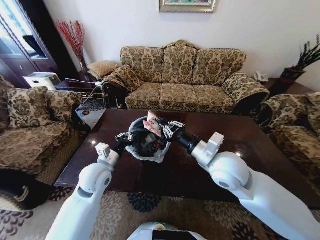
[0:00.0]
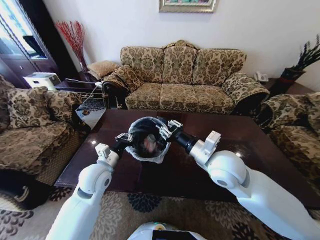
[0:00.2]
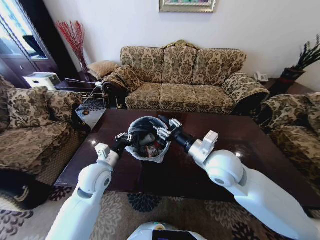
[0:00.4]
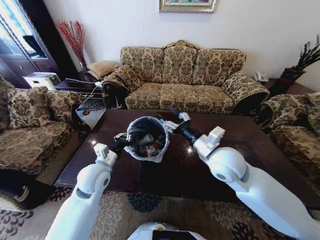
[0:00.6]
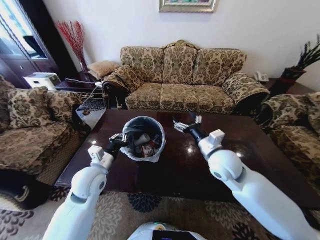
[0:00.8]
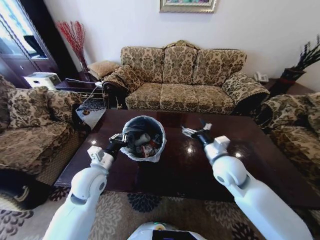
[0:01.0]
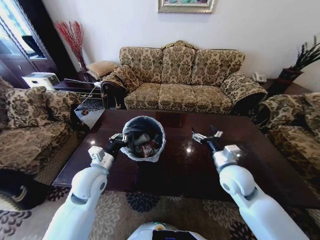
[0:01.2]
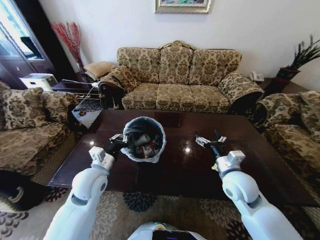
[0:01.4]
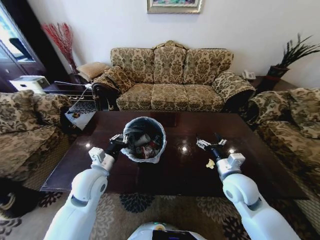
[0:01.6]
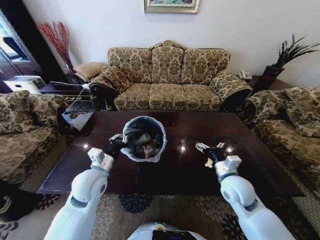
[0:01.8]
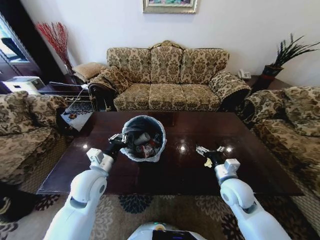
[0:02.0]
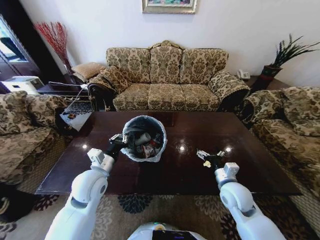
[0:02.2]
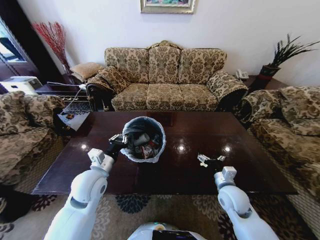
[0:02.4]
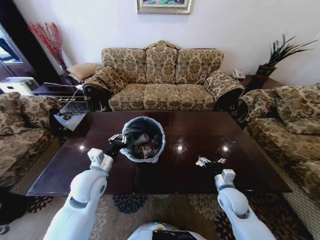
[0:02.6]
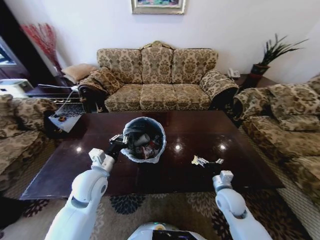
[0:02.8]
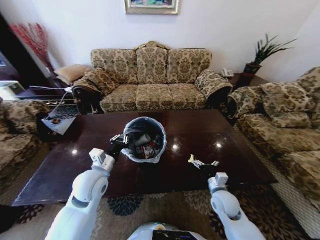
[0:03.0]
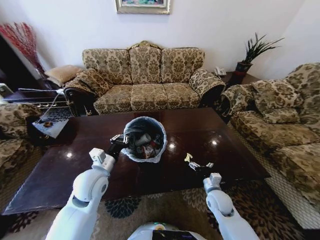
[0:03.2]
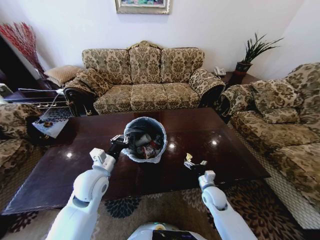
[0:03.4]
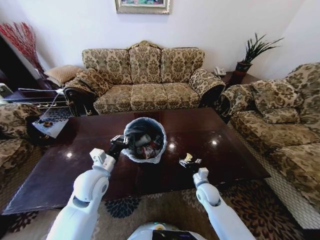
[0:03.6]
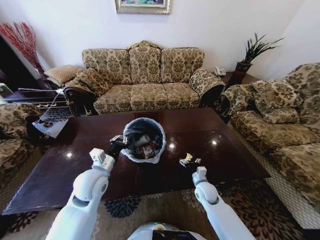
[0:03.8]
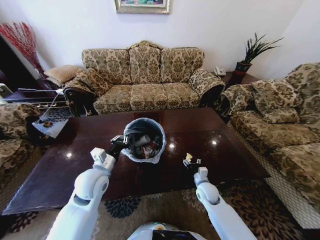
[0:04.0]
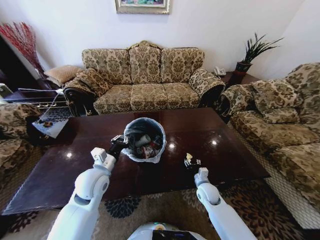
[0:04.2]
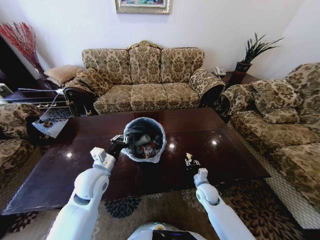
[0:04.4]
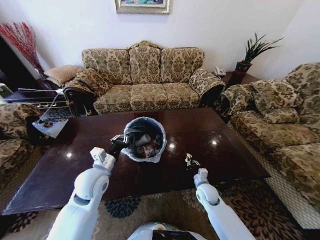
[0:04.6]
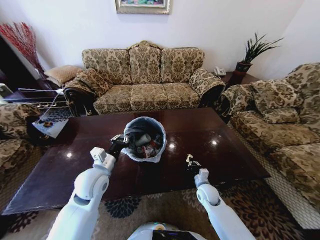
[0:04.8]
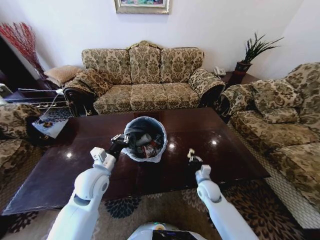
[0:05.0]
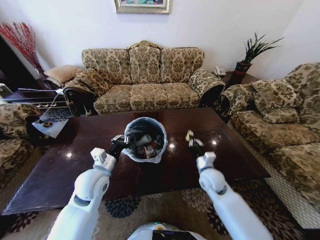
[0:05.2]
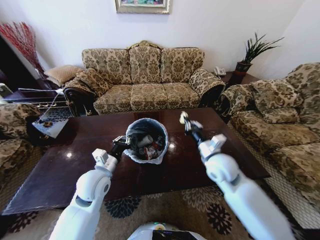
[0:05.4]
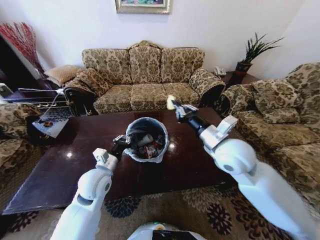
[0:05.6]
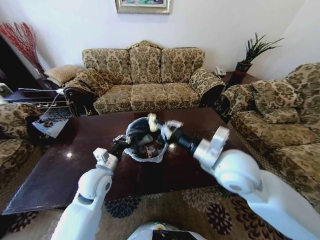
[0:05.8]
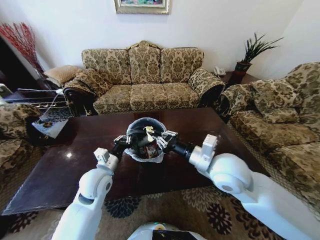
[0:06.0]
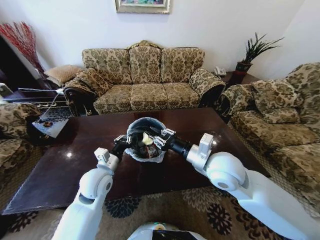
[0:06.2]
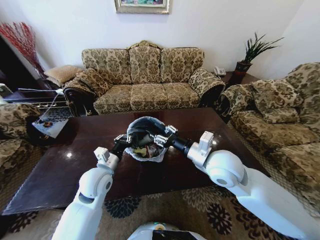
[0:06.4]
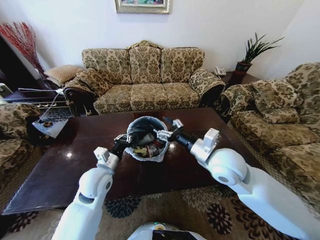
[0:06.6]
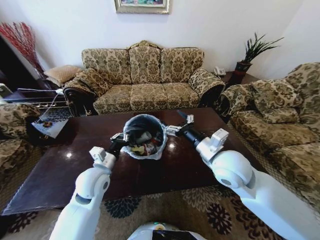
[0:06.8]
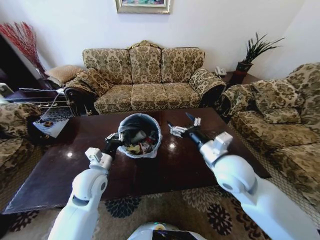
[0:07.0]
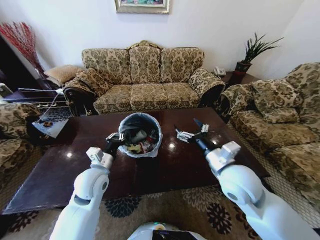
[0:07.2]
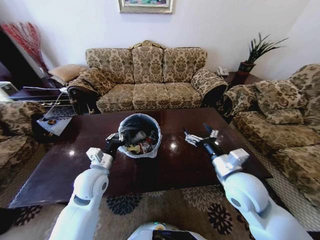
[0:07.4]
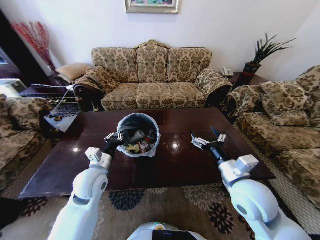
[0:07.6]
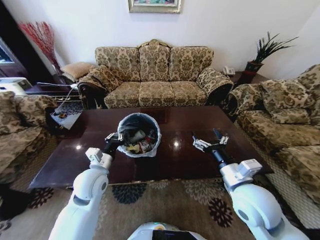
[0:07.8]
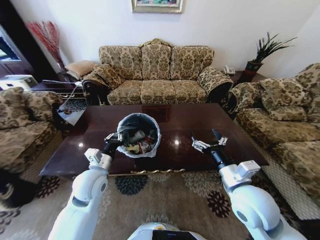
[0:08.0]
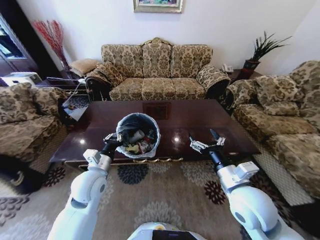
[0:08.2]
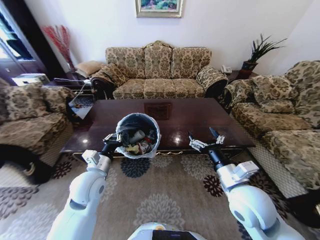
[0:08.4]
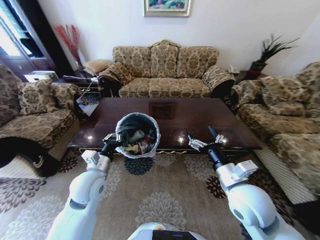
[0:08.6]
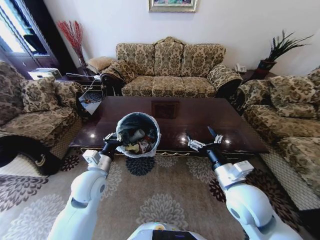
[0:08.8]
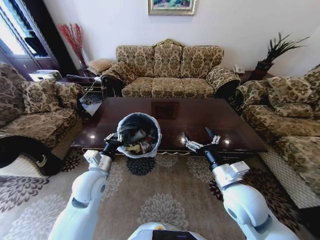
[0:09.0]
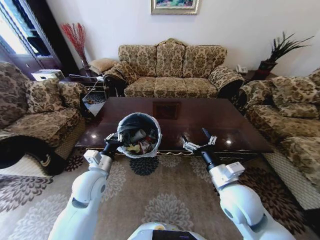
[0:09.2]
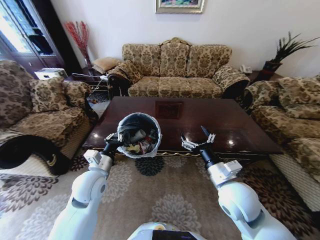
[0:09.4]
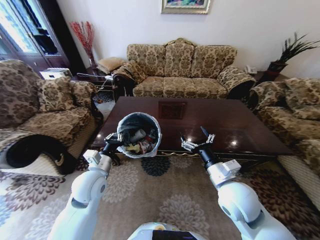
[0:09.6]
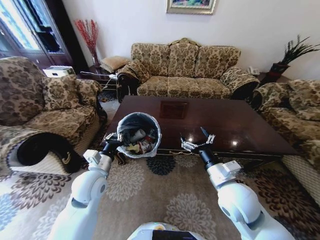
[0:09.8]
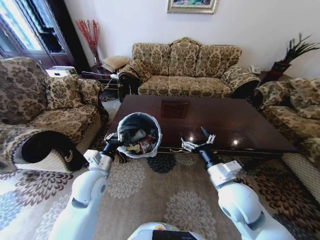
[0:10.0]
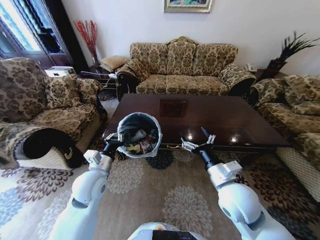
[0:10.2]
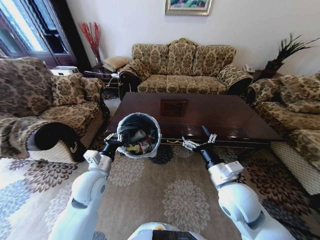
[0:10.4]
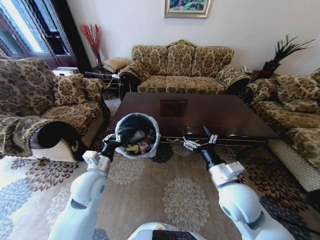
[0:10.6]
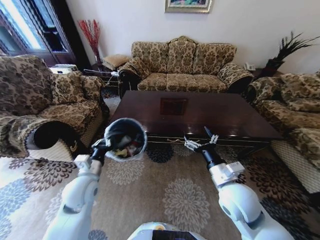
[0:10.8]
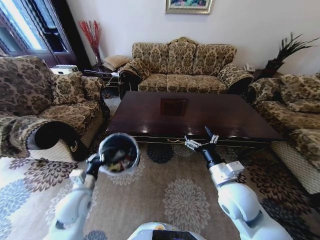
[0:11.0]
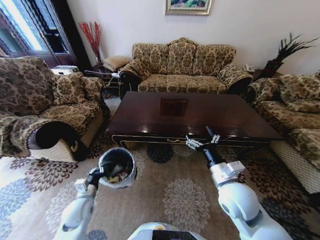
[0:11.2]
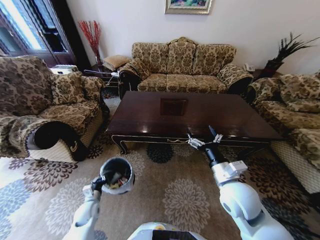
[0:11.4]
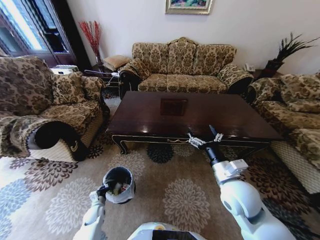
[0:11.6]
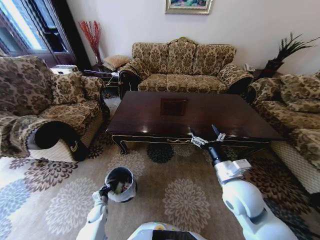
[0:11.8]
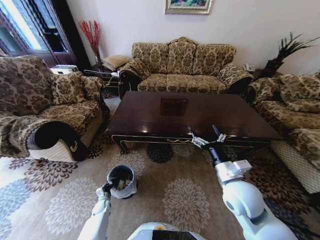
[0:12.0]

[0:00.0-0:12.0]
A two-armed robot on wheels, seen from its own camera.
Task of the whole recording: Move to the front of the table and place the trash on the table into the trash bin.
0:00.0 to 0:01.6: The right gripper shifts about 15 cm downward and to the right, and opens its fingers.
0:01.6 to 0:03.0: The right gripper heads downward, covering about 15 cm.
0:03.0 to 0:04.4: The right gripper travels downward and forward by some 10 cm, and closes up.
0:04.4 to 0:06.0: The right gripper travels upward by about 30 cm, and closes.
0:06.0 to 0:07.6: The right gripper heads to the right and downward, covering about 10 cm, and opens.
0:10.4 to 0:12.0: The left gripper travels downward by roughly 40 cm.

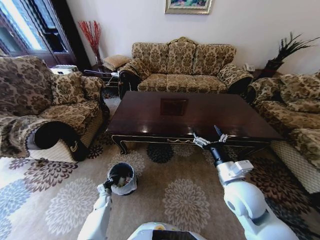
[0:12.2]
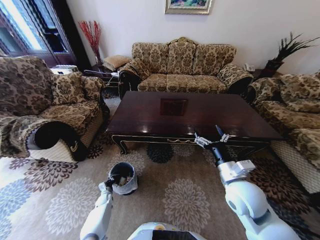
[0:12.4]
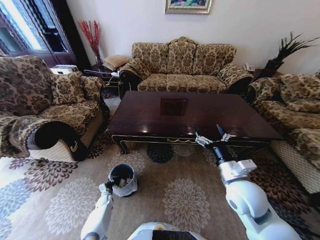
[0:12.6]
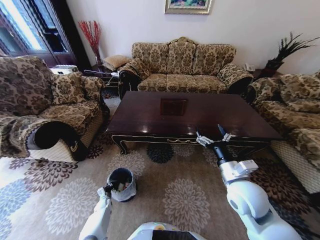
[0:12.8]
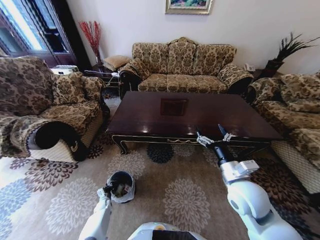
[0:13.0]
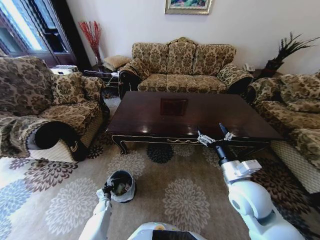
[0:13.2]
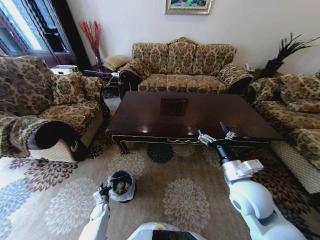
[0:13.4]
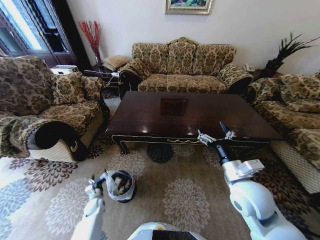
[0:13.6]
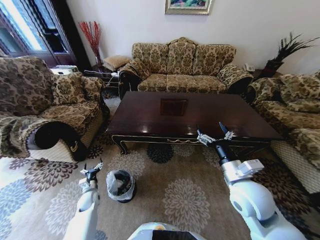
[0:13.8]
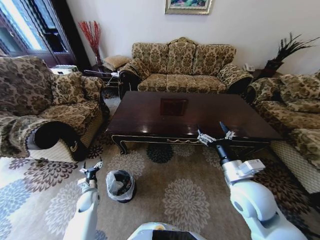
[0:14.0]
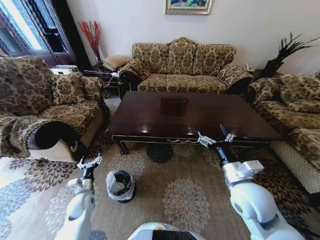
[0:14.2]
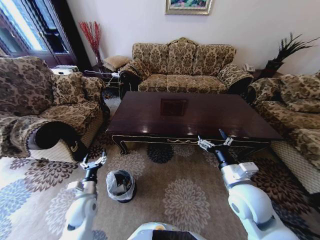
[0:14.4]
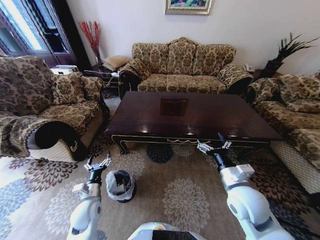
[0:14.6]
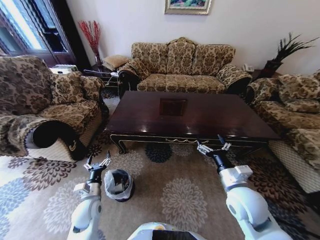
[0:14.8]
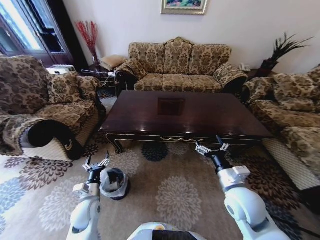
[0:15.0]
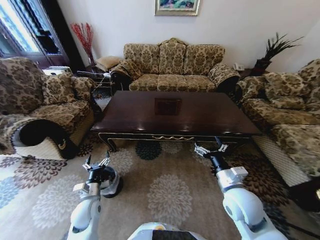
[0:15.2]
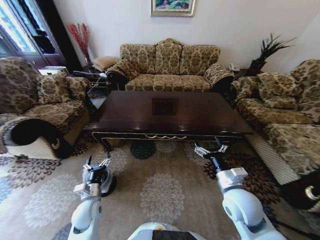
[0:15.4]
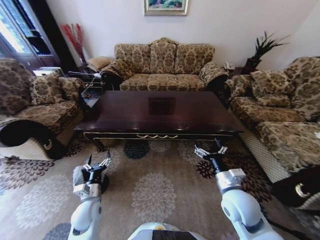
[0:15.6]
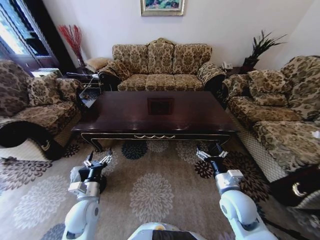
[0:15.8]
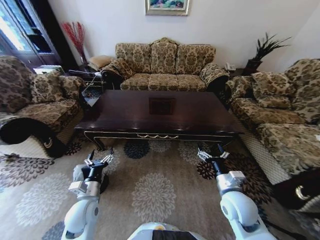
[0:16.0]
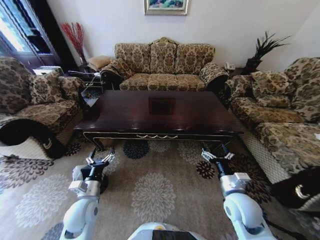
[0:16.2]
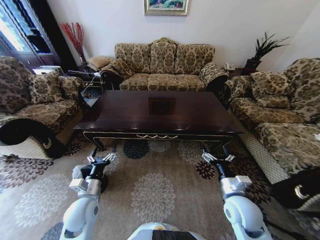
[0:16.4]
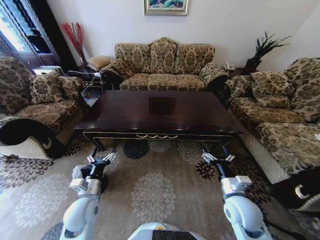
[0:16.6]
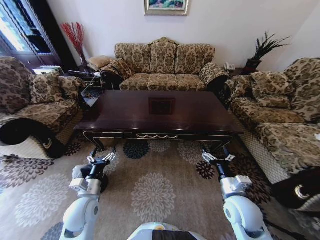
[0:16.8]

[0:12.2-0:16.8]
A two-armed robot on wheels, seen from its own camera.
Task of the whole recording: Move to the front of the table and place the trash on the table into the trash bin.
0:12.2 to 0:13.8: The left gripper goes some 10 cm upward, and opens its fingers.
0:13.8 to 0:15.2: The left gripper heads upward, to the right and backward, covering some 15 cm.
0:15.2 to 0:16.8: The left gripper is displaced upward by approximately 5 cm.
